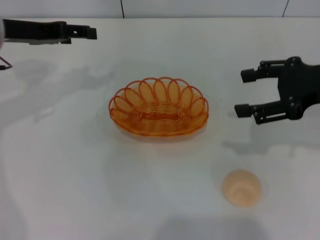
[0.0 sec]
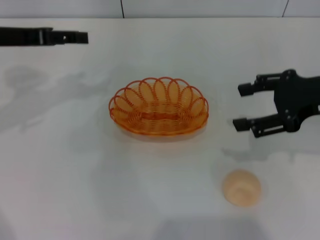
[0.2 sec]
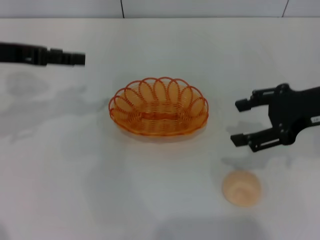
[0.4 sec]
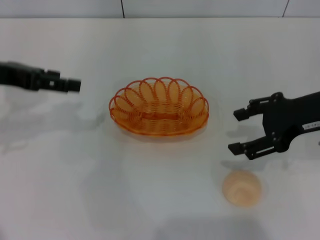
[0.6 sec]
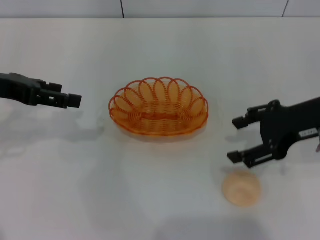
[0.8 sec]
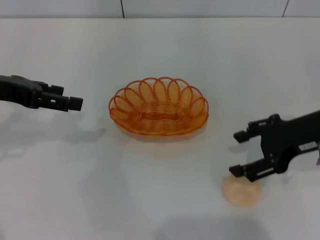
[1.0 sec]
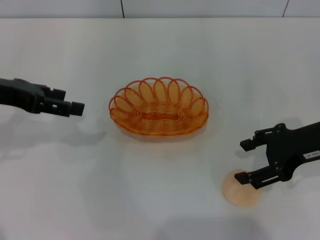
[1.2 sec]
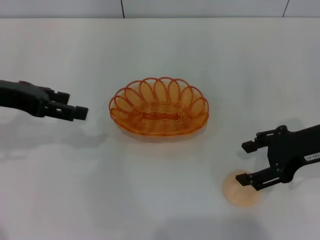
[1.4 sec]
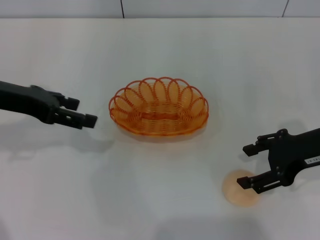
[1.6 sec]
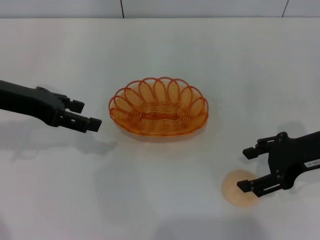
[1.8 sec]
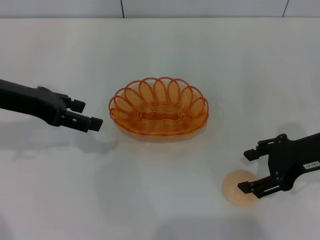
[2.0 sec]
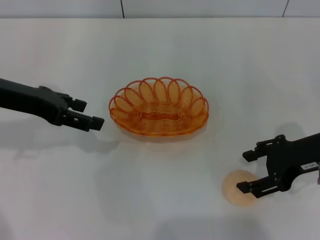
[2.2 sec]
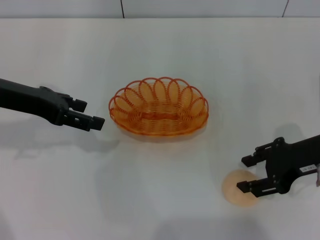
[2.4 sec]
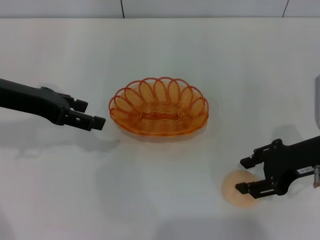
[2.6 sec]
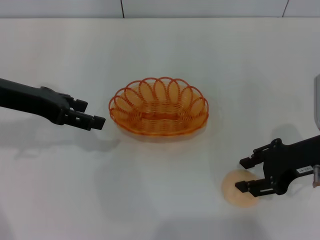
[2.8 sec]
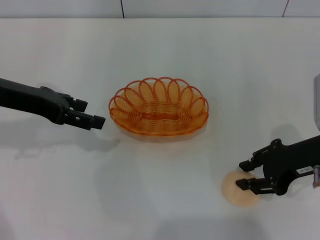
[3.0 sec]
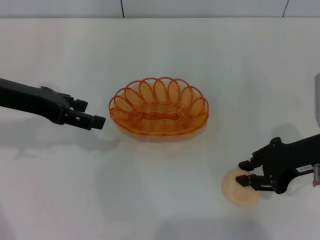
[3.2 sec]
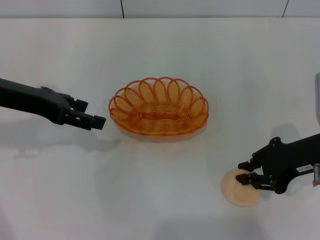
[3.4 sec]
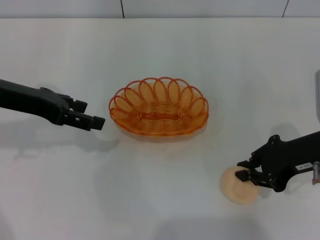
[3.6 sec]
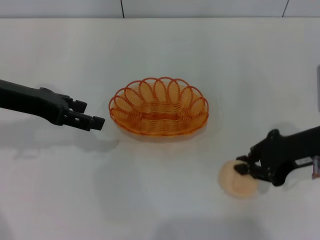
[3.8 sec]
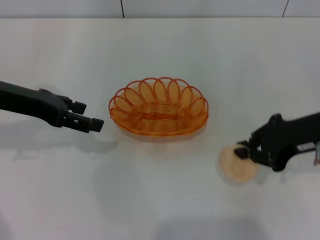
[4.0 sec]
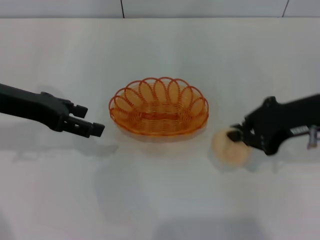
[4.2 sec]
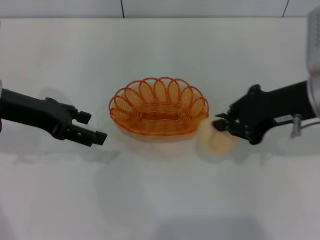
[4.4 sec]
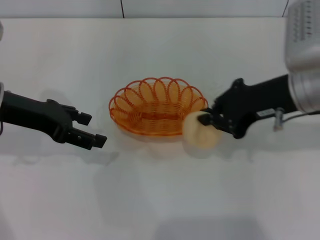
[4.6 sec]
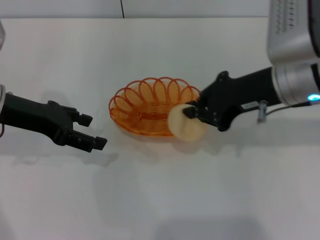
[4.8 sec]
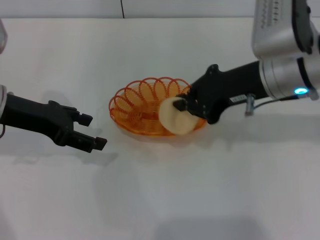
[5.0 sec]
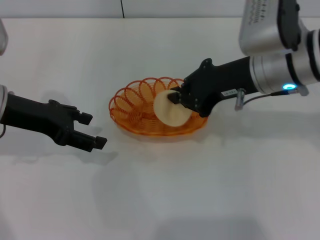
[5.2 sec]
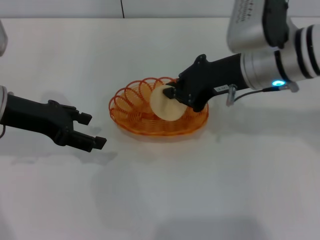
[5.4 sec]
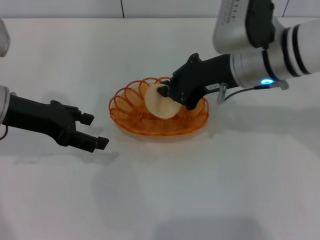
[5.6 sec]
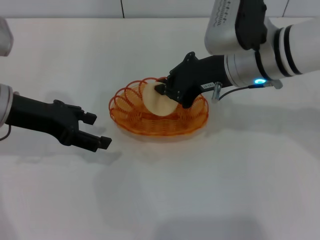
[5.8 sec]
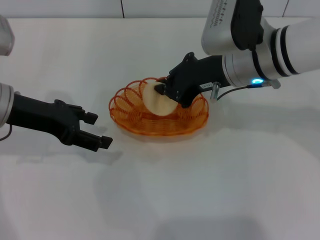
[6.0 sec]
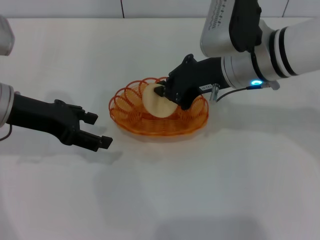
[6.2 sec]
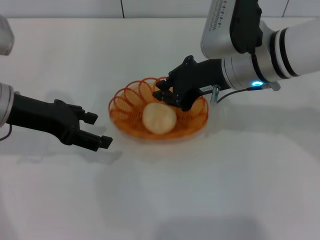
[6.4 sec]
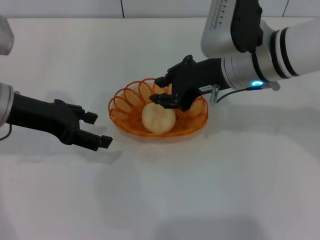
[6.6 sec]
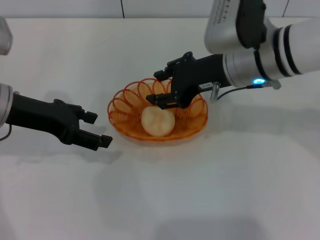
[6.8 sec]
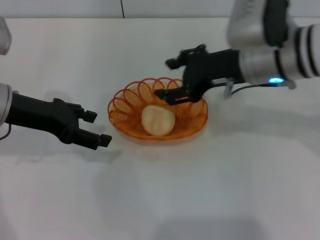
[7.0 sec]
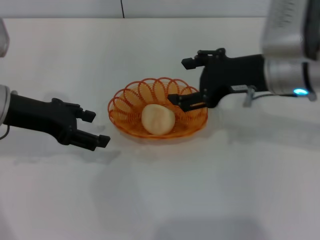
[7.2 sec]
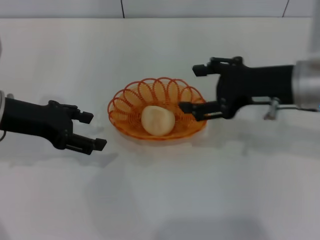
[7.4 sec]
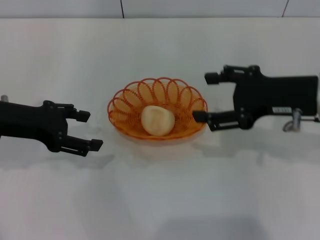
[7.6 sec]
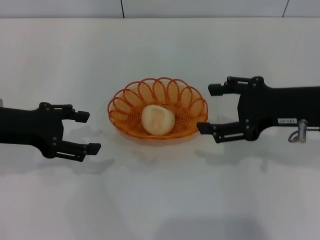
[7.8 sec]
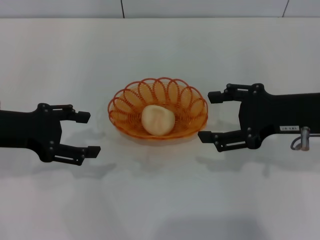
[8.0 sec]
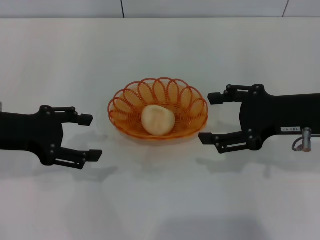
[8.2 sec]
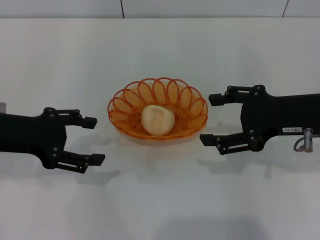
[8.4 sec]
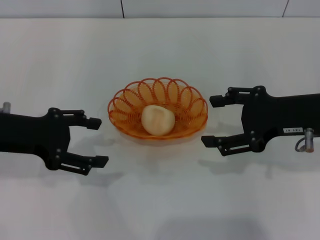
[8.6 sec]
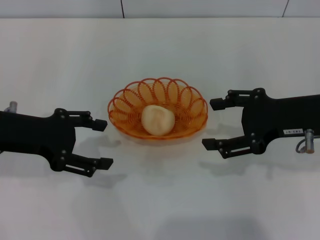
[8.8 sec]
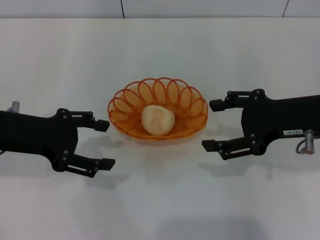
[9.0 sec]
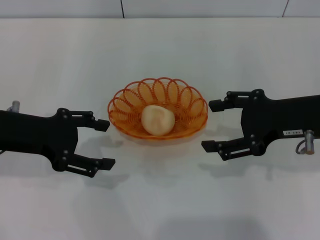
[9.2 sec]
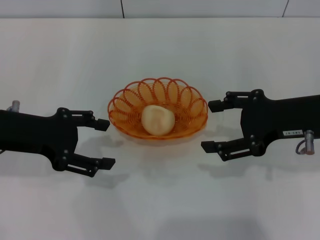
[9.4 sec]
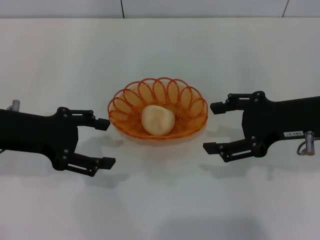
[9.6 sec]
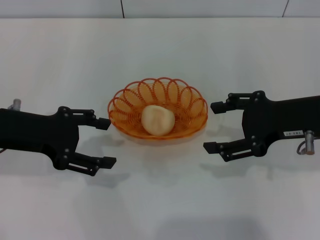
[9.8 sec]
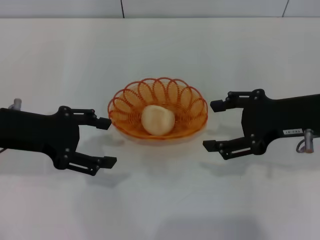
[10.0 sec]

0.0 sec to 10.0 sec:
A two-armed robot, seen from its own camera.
Step, 0.0 sec to 4.4 sec: Pick up the egg yolk pastry with the right gripper.
Step, 4.6 sec to 7.0 sec: Place the egg yolk pastry into the basket with the right gripper.
0.0 sec to 1.4 sec: The right gripper shifts by some 5 cm; the left gripper heads backward, covering some 5 cm.
1.4 sec to 2.8 sec: The grippers move only a little.
2.8 sec to 4.2 sec: The right gripper is displaced upward by some 5 cm, and closes.
4.2 sec to 5.8 sec: The right gripper moves to the left and forward, about 10 cm.
5.8 sec to 7.2 sec: The right gripper changes place by some 5 cm, and opens.
7.2 sec to 8.6 sec: The right gripper is displaced to the right by approximately 5 cm.
8.6 sec to 10.0 sec: Neither gripper changes place.
